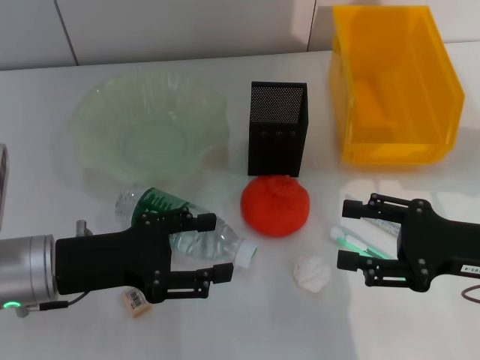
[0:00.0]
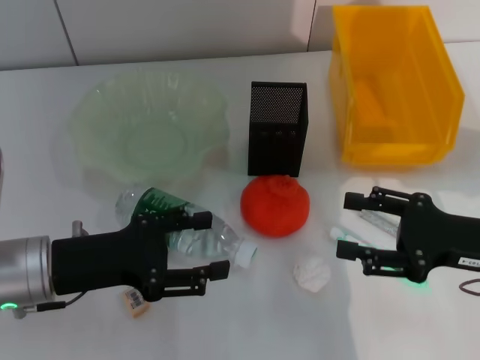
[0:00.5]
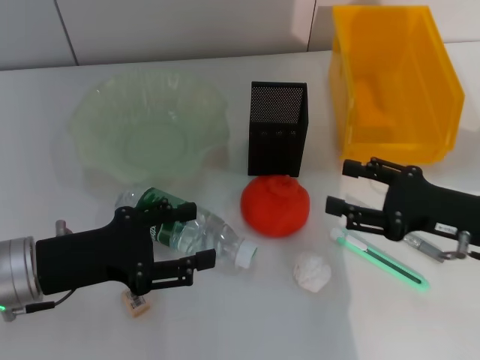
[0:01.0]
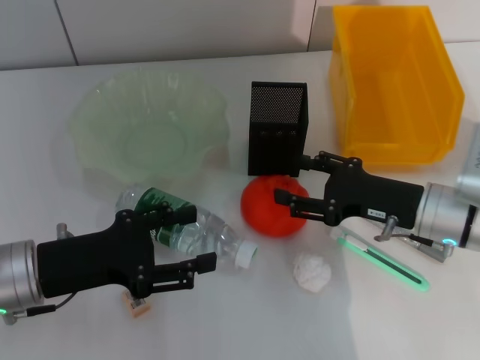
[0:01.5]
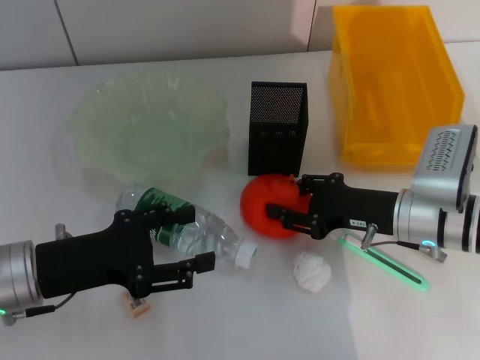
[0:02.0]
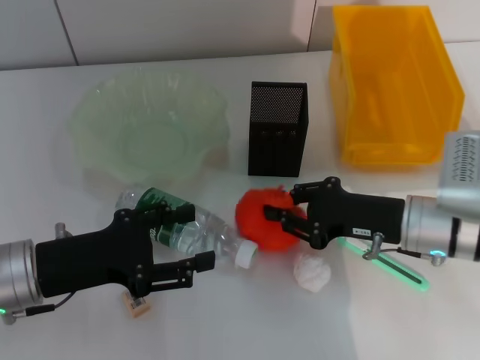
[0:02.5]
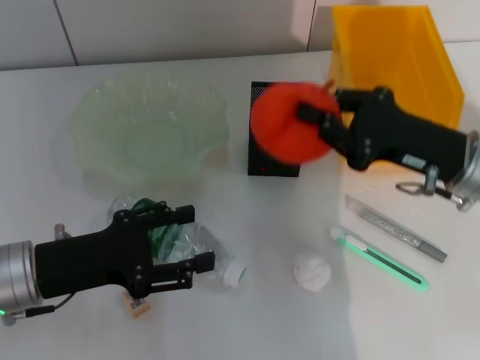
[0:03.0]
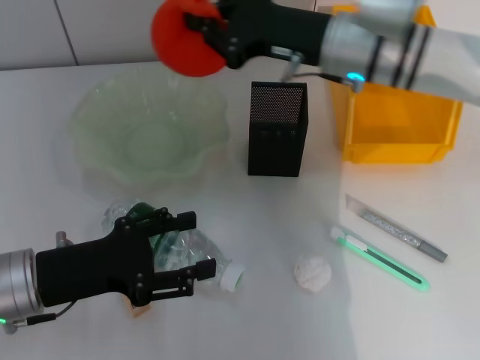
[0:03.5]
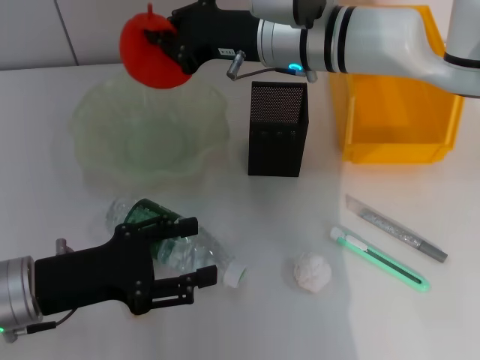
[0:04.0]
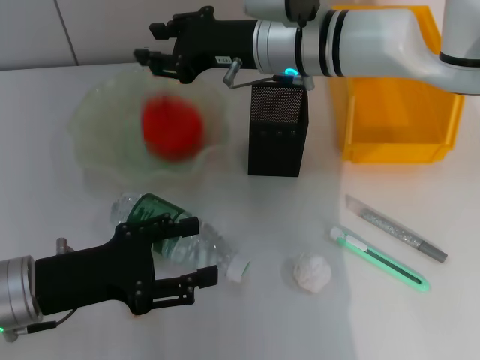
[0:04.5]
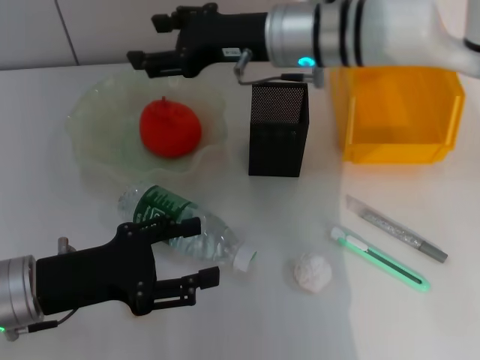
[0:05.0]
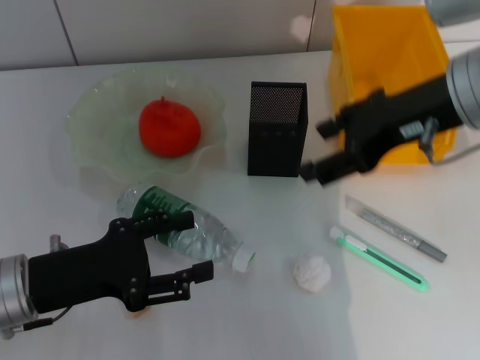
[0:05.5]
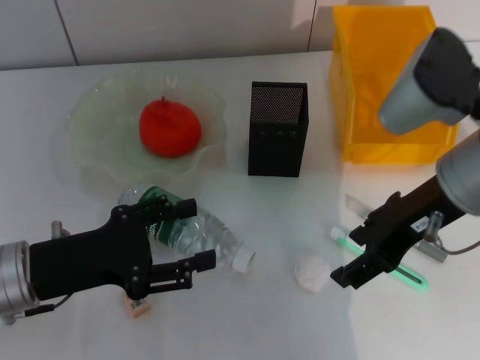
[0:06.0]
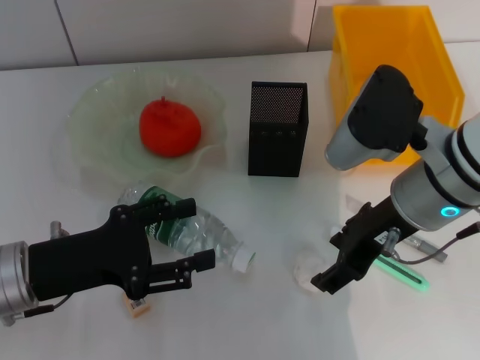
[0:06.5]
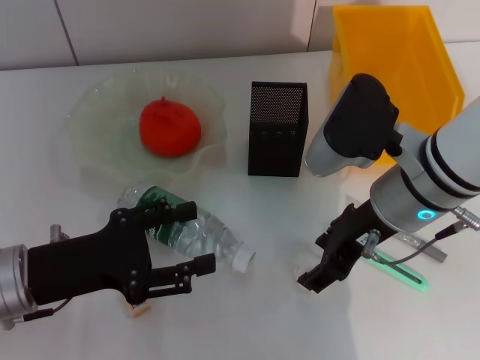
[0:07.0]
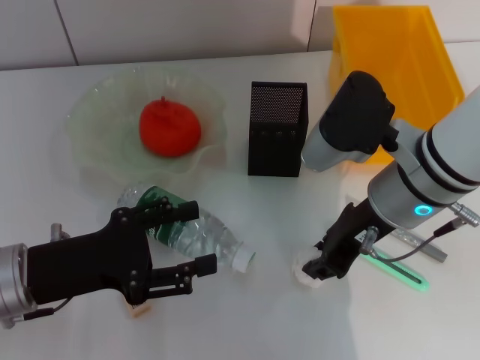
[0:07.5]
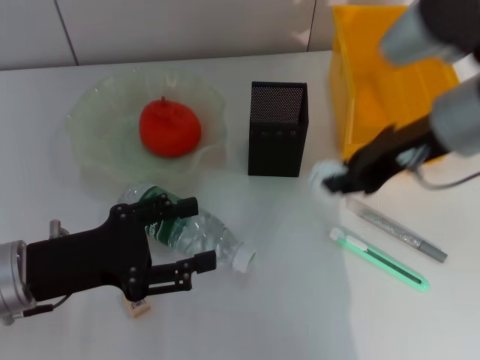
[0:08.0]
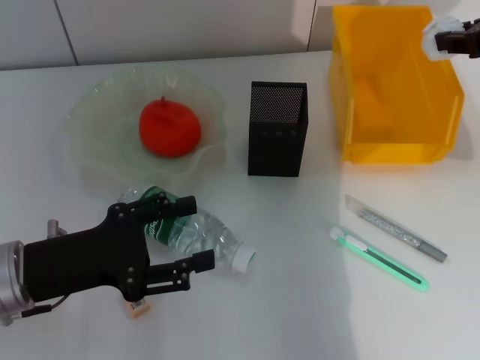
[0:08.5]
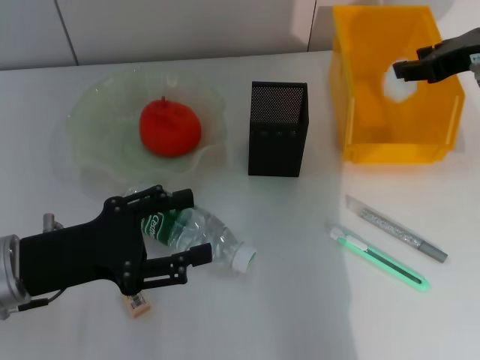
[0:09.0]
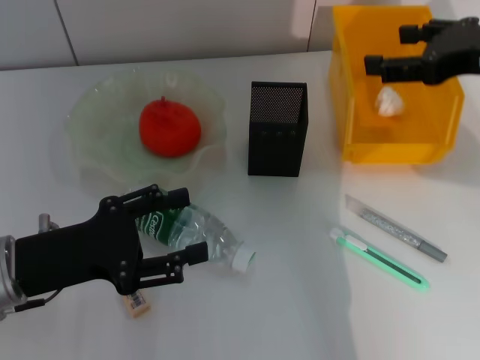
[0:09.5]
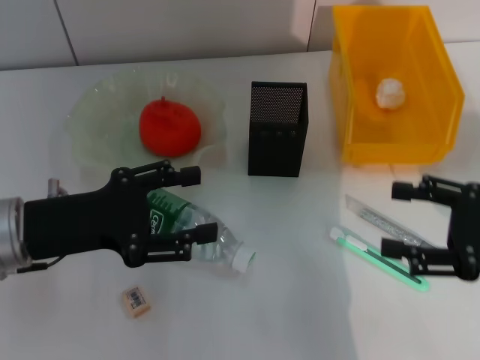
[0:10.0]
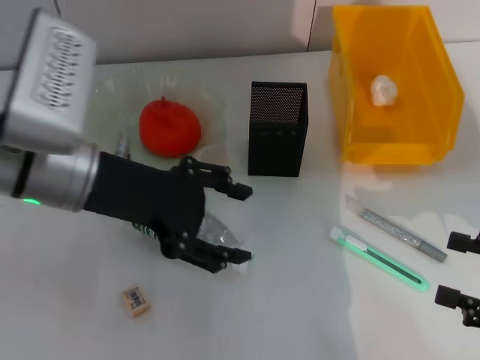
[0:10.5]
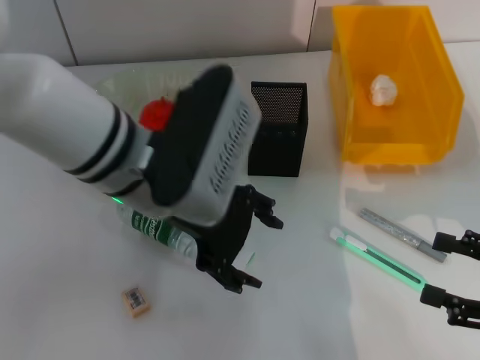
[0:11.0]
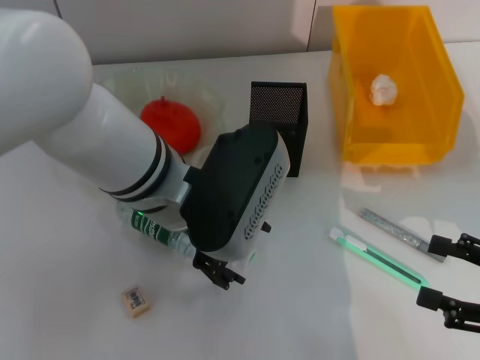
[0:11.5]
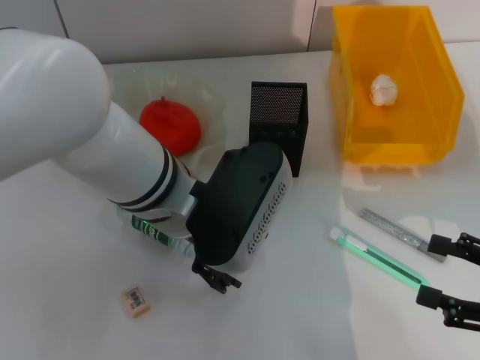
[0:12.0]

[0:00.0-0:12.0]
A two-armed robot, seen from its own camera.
Step, 0:00.0 to 0:02.0: Grab the orange with the right hand.
Step, 0:02.5 to 0:04.5: Place the orange into the fruit bowl with the right hand.
Step, 0:05.0 to 0:07.0: Grab the paper ball with the right hand.
Step, 0:07.5 to 0:09.0: Place the paper ball into the trash can with the right hand.
0:00.0 to 0:02.0: The right gripper goes approximately 10 cm forward and to the left.
0:02.0 to 0:04.0: The right gripper moves upward, to the left and forward, some 20 cm, and closes up.
0:04.0 to 0:06.0: The right gripper shifts some 20 cm backward and to the right, and opens up.
0:06.0 to 0:08.0: The right gripper closes.
0:08.0 to 0:10.0: The right gripper shifts about 20 cm to the right, backward and downward, and opens its fingers.
0:10.0 to 0:12.0: The left gripper is displaced to the right by about 15 cm, while the right gripper shifts approximately 5 cm backward.

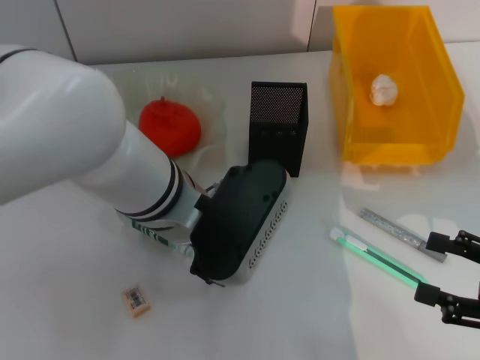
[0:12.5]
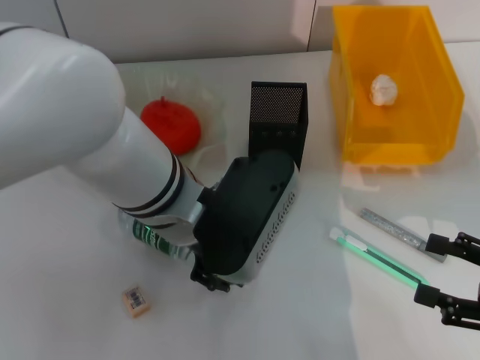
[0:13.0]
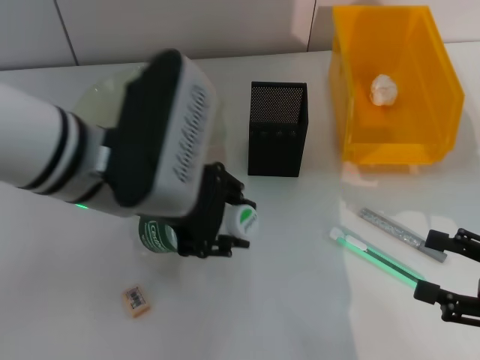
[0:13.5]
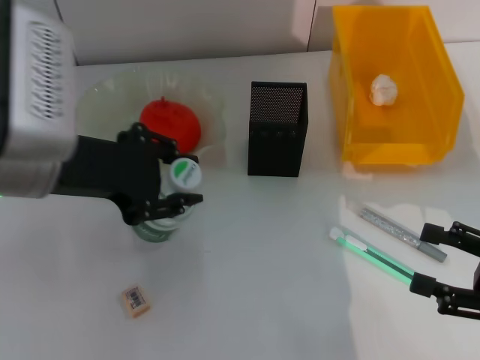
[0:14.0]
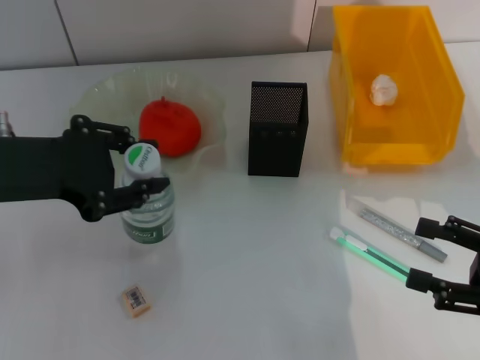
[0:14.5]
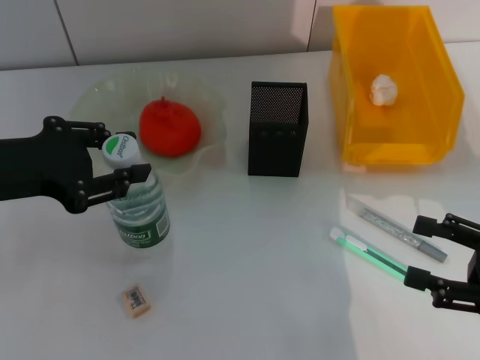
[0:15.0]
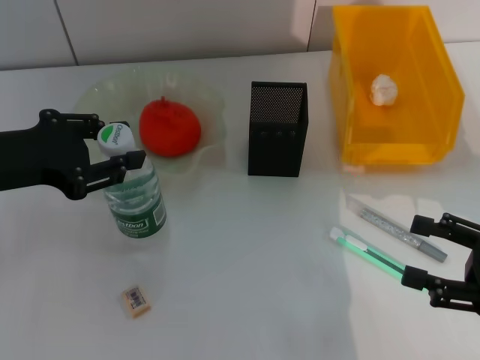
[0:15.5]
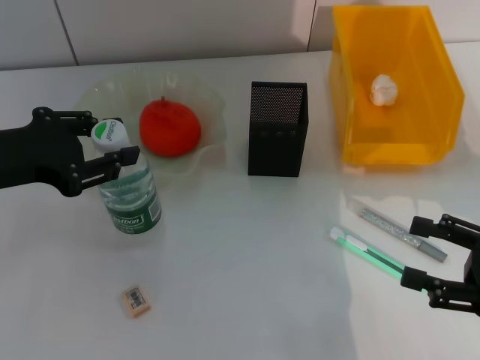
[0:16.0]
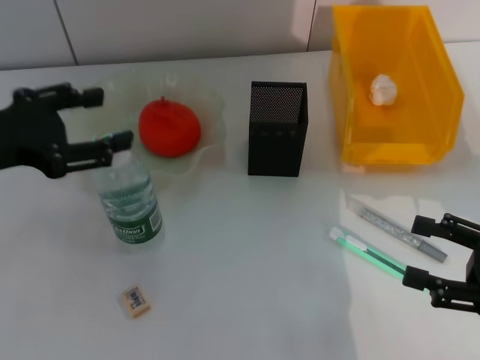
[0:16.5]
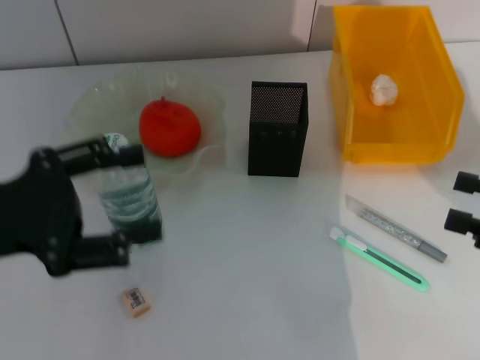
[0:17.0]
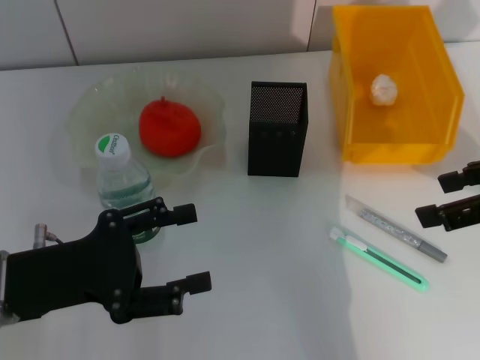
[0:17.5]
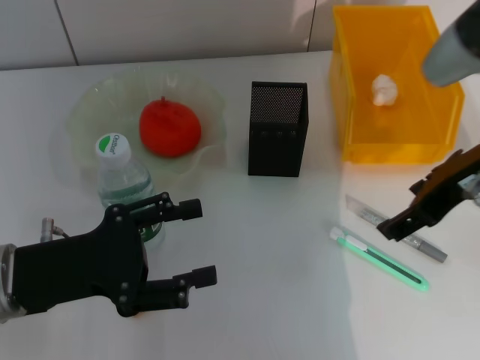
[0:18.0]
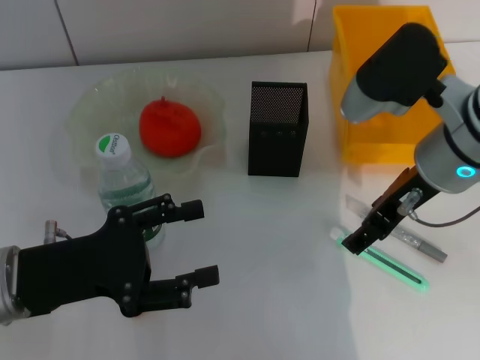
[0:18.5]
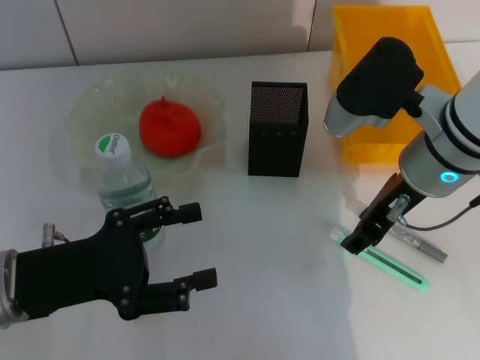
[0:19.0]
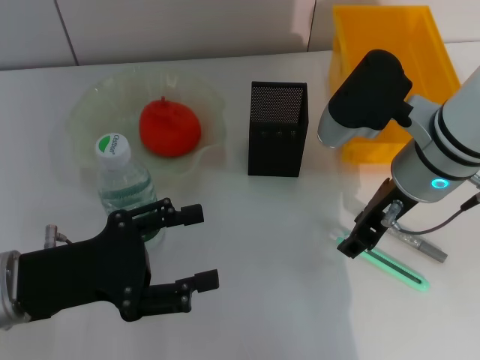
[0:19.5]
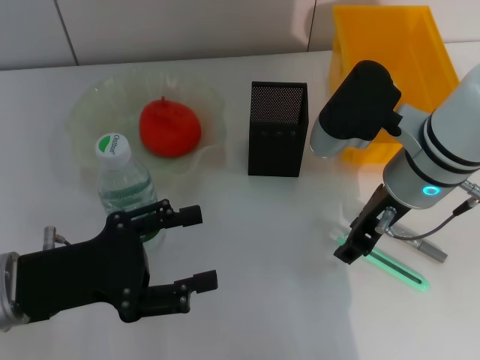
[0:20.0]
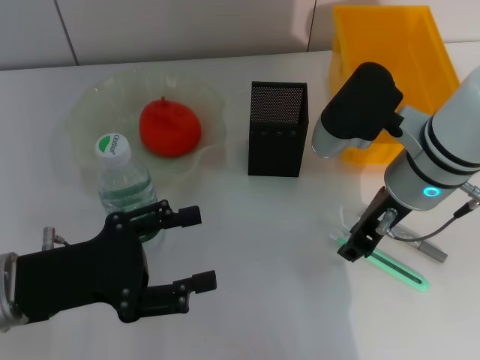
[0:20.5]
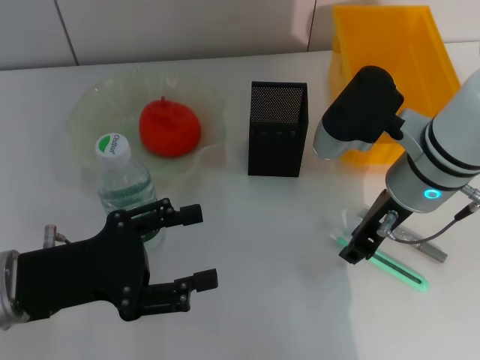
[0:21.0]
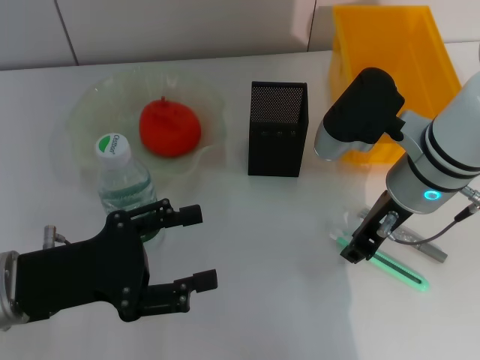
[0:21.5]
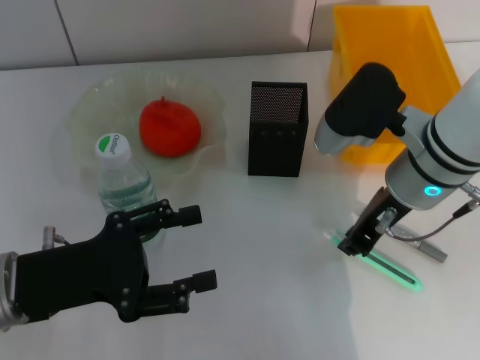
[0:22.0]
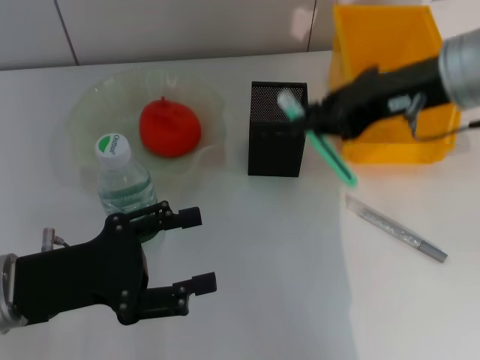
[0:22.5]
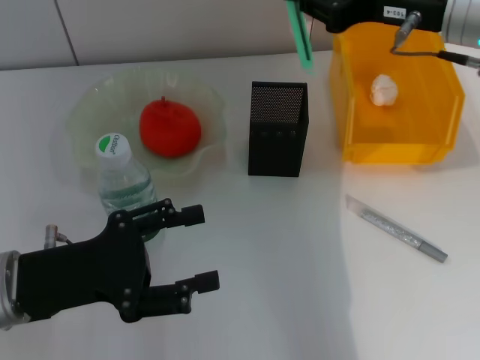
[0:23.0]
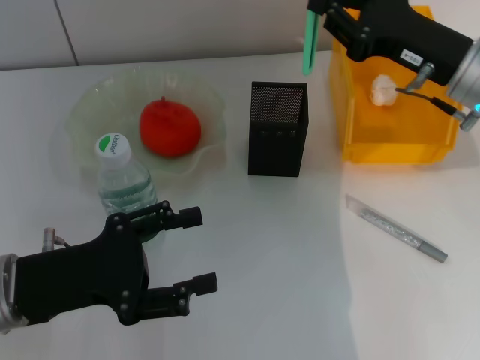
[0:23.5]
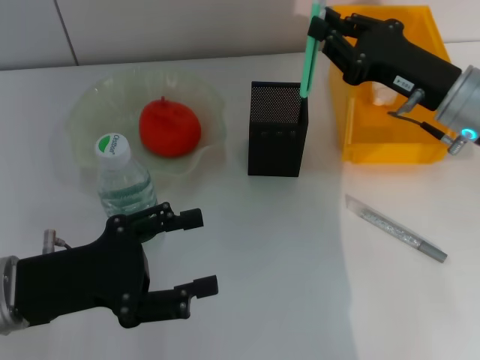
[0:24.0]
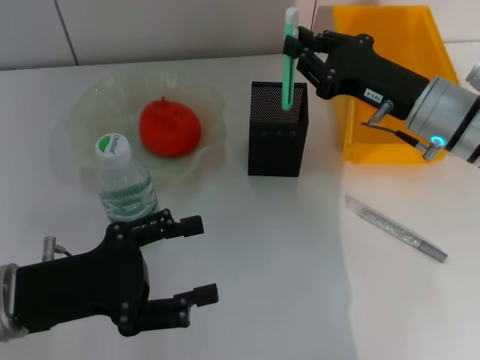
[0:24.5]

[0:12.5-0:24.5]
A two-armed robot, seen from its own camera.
Step, 0:13.0 to 0:16.5: Place the water bottle on the table with the left hand.
Step, 0:17.0 to 0:21.5: Grab the blue utility knife with the right hand.
0:12.5 to 0:14.5: The left gripper goes approximately 20 cm to the left and upward, and closes its fingers.
0:14.5 to 0:16.5: The left gripper moves some 5 cm, and opens.
0:16.5 to 0:18.5: The right gripper shifts about 25 cm to the left, forward and upward. Meanwhile the left gripper travels downward and backward by about 10 cm.
0:18.5 to 0:20.5: The right gripper closes up.
0:20.5 to 0:22.5: The right gripper heads upward, covering roughly 10 cm, and closes up.
0:22.5 to 0:24.5: The right gripper is displaced downward by some 15 cm.

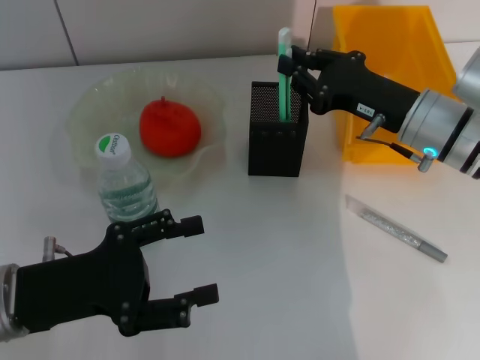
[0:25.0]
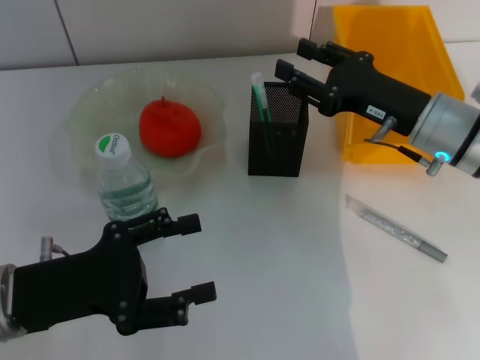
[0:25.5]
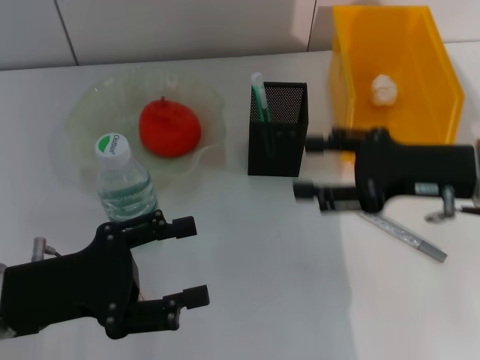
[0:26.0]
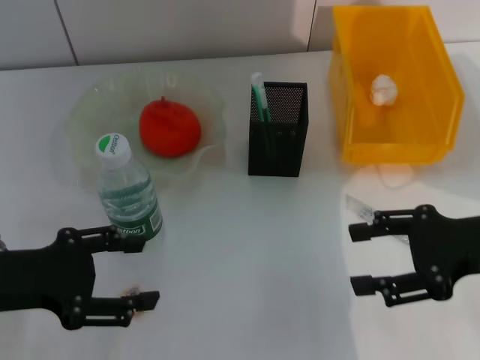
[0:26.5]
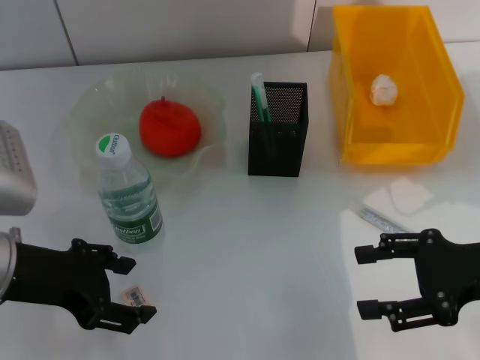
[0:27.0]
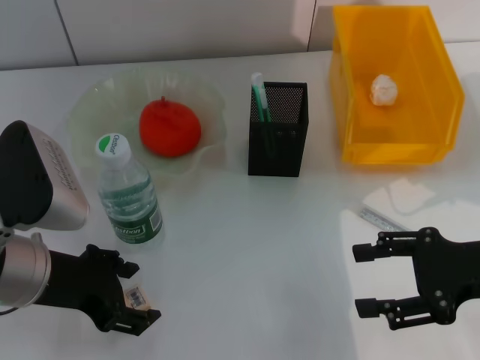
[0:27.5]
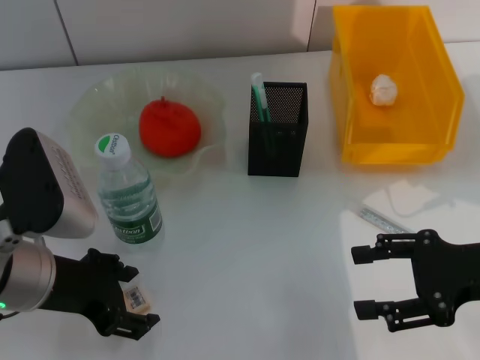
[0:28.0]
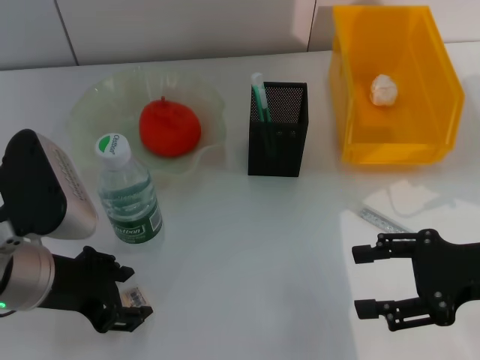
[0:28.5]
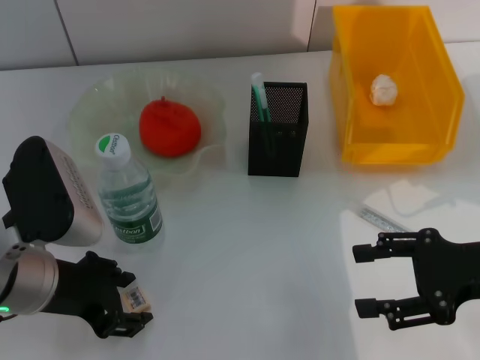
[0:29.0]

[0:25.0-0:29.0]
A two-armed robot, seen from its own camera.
0:25.0 to 0:27.0: The right gripper shifts about 15 cm backward and to the right, and opens. Meanwhile the left gripper goes some 5 cm upward.
0:27.0 to 0:29.0: The left gripper closes its fingers.
